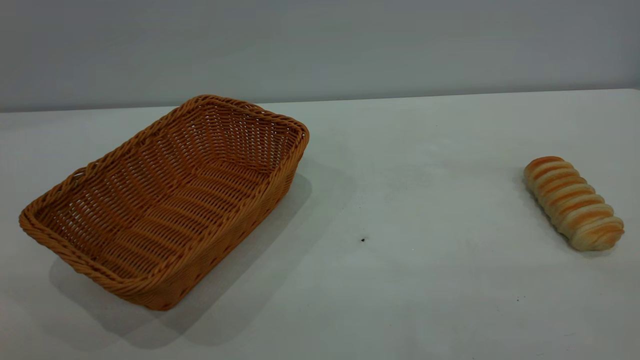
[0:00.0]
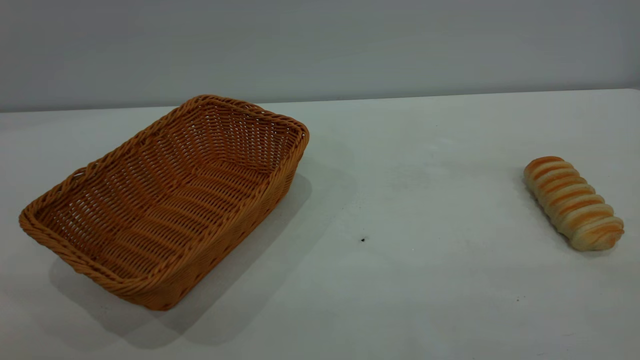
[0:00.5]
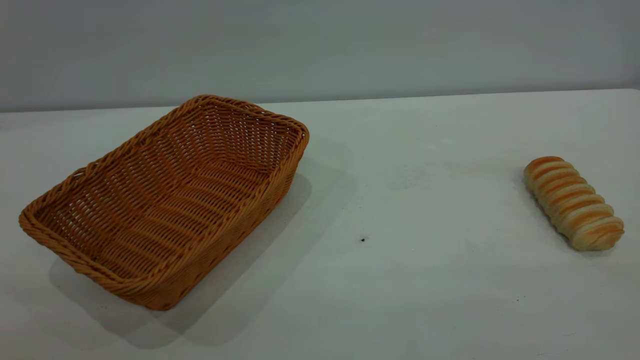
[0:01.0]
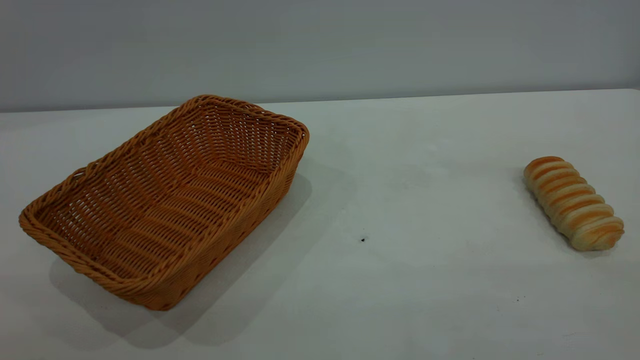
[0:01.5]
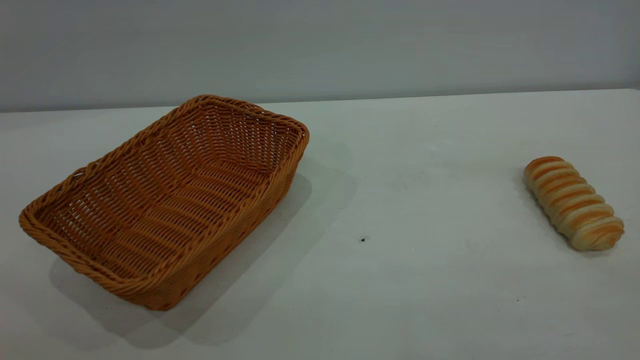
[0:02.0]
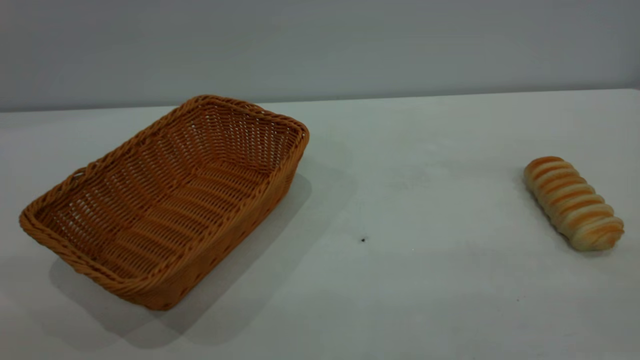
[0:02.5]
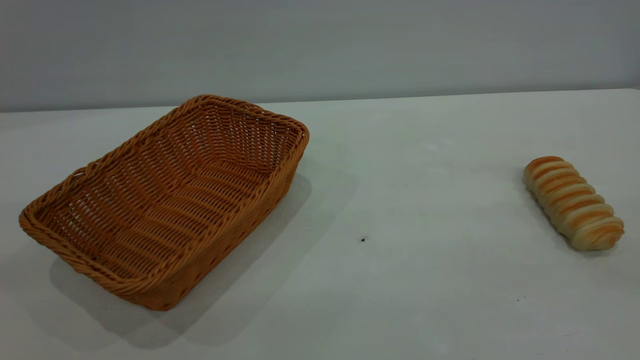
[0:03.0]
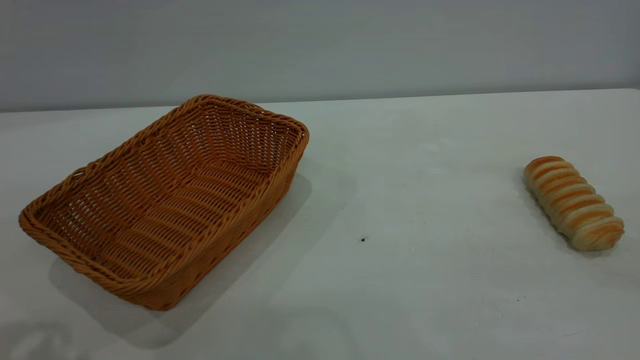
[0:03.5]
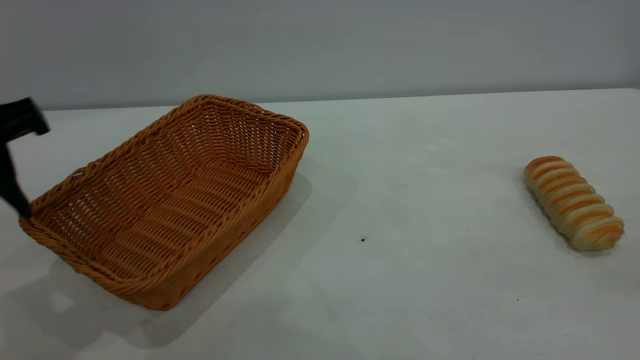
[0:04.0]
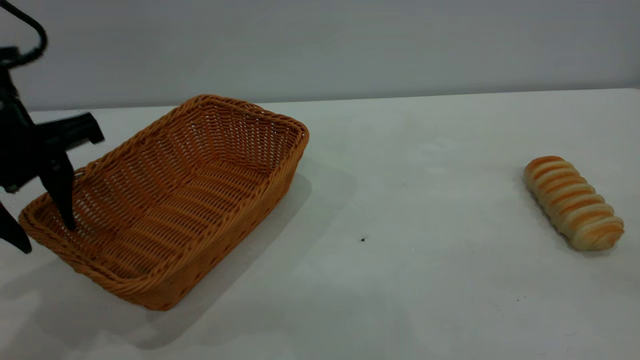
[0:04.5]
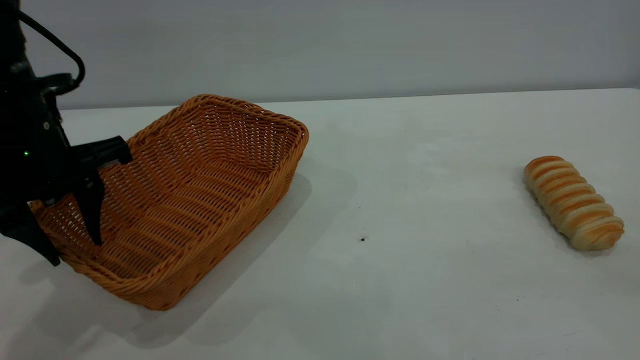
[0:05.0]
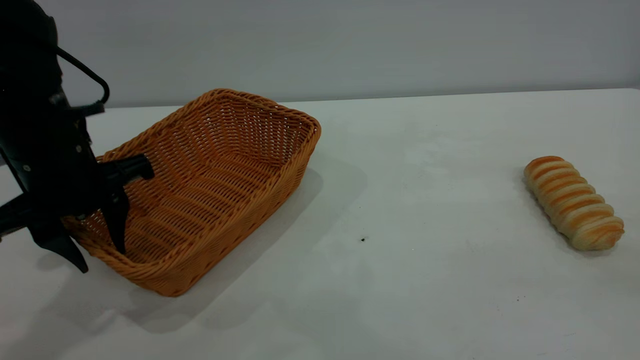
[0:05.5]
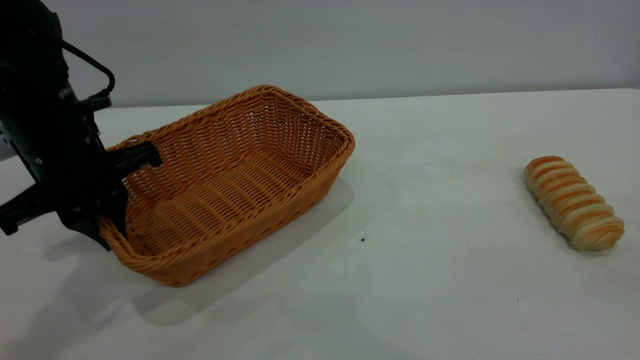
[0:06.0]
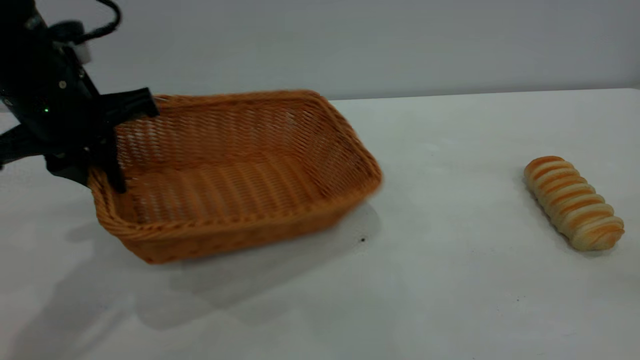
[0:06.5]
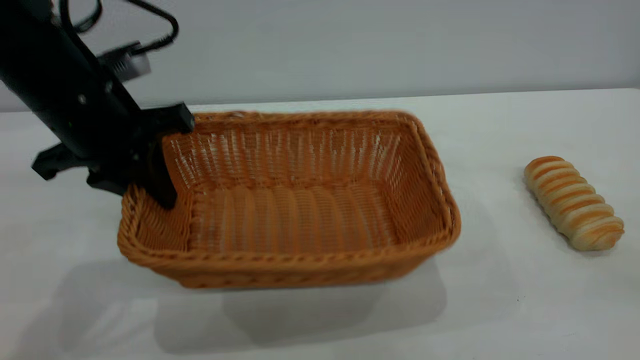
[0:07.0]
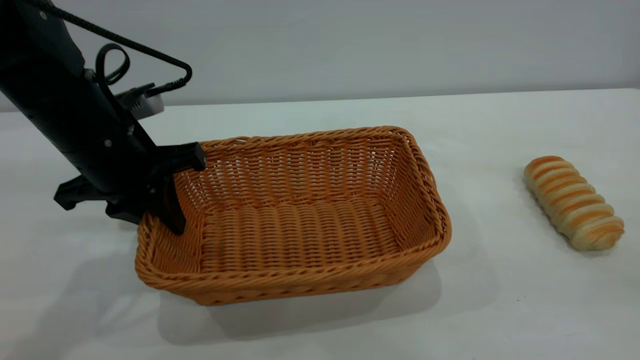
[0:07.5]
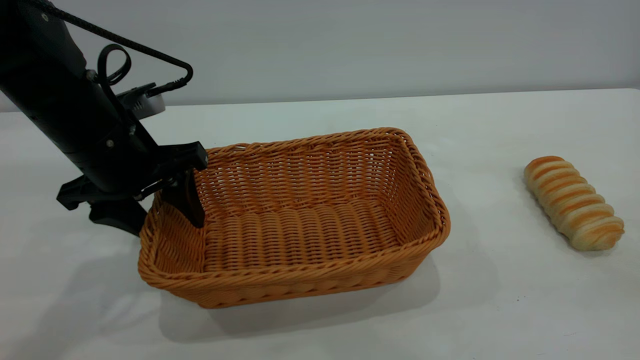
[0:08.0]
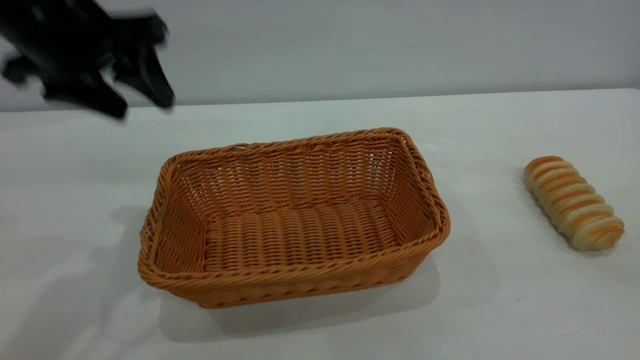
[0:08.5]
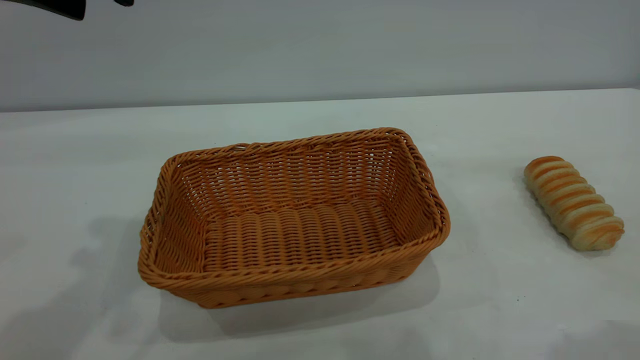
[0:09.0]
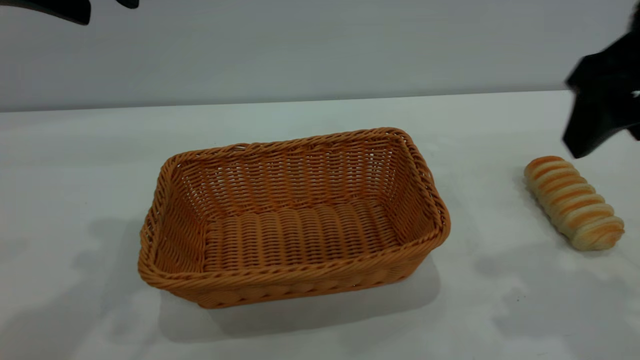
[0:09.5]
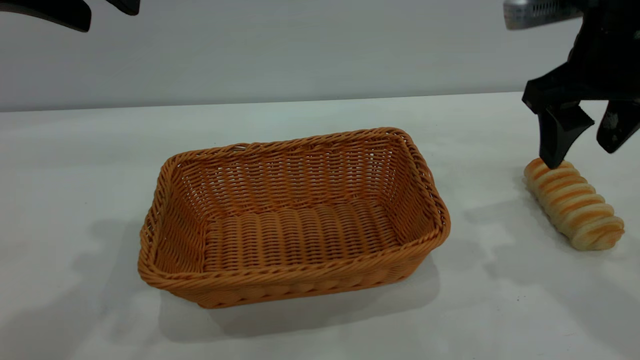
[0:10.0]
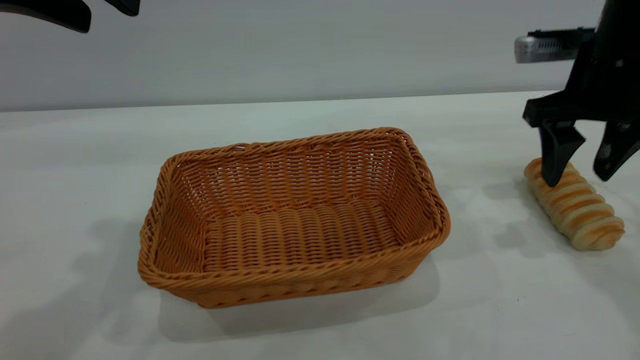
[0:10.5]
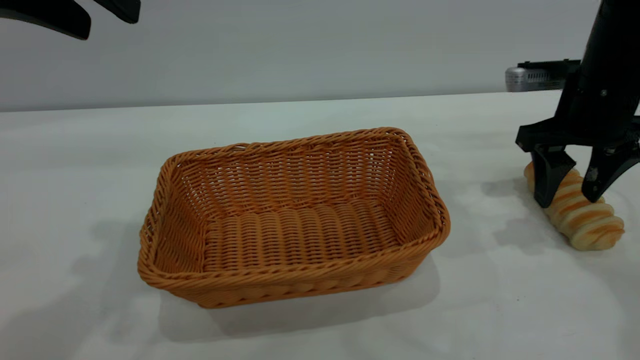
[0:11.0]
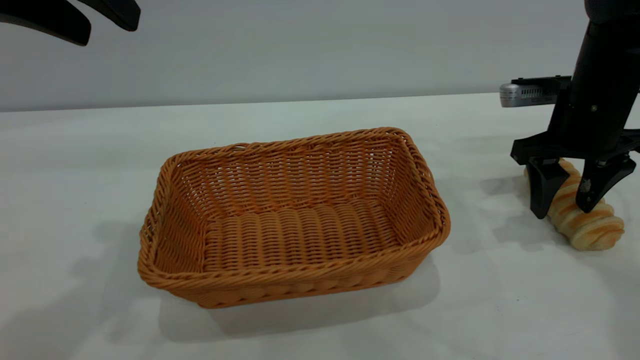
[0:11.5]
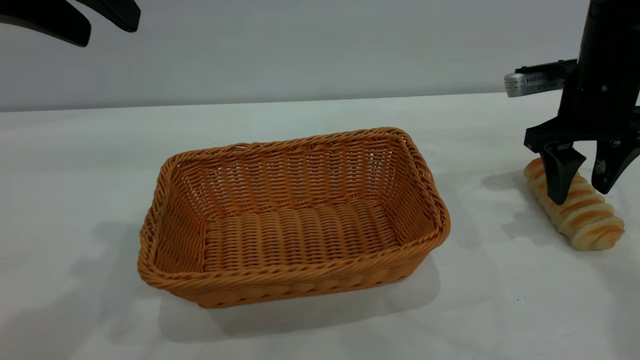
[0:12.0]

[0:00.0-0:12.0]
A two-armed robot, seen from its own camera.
Task of the whole recording: One hand grasps the yellow basket and places it in the middle of the table, while the other hand picks up the long bread and puts it into the yellow basket.
Step, 0:00.0 to 0:08.0: Move the basket to the center of view.
0:02.0 to 0:04.0: The left gripper is displaced forward by approximately 25 cm.
0:04.0 to 0:06.0: The left gripper shifts roughly 15 cm forward and downward, and closes up.
0:06.0 to 0:08.0: The left gripper opens up.
0:08.0 to 0:10.0: The left gripper goes about 20 cm upward; the right gripper shifts roughly 30 cm forward and downward.
0:10.0 to 0:12.0: The right gripper is displaced downward and forward by approximately 10 cm.

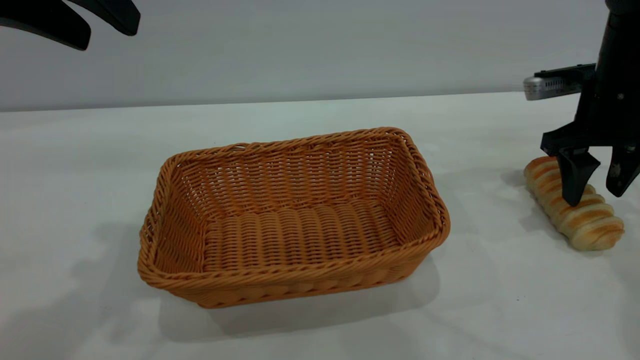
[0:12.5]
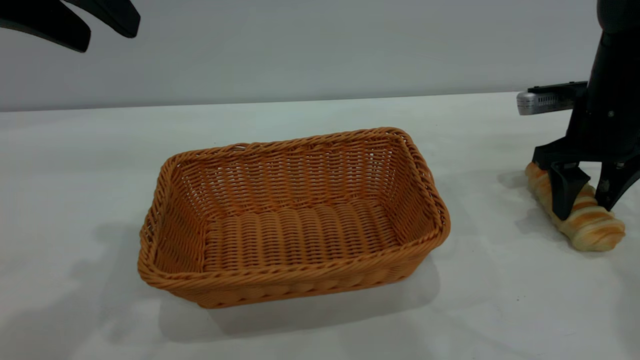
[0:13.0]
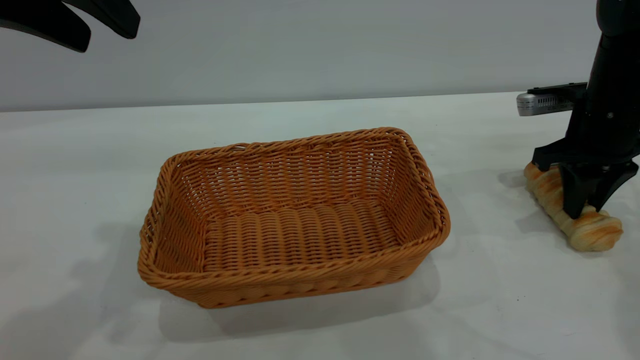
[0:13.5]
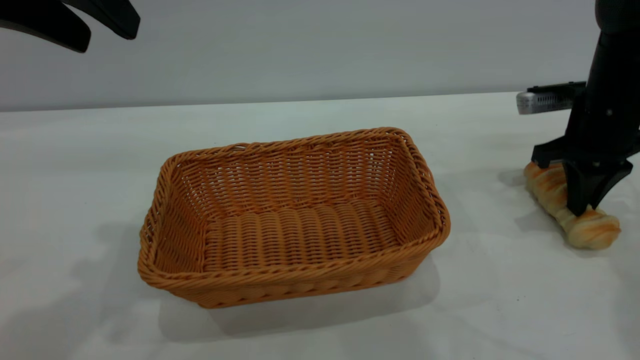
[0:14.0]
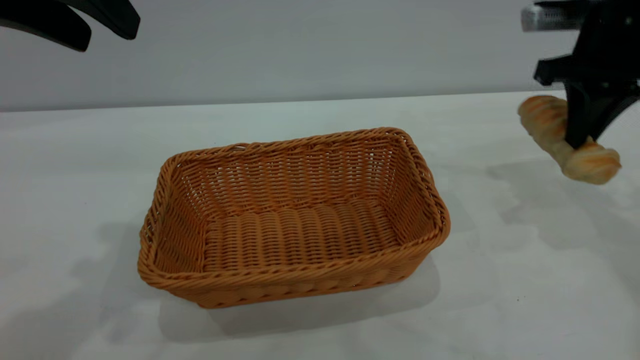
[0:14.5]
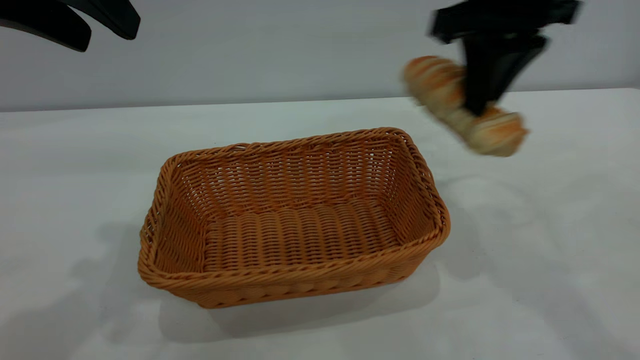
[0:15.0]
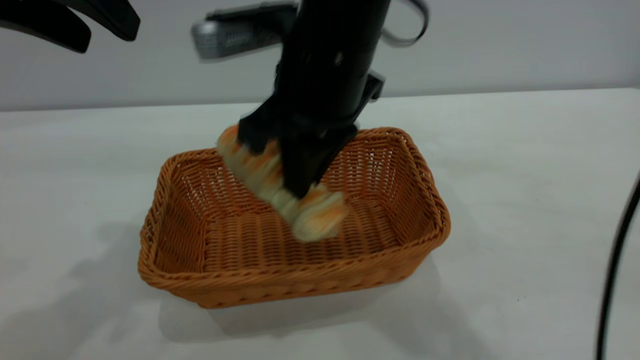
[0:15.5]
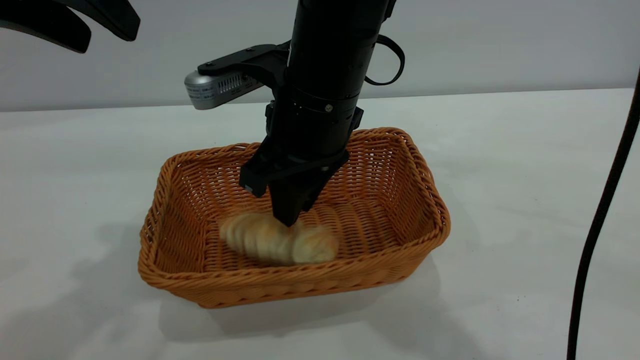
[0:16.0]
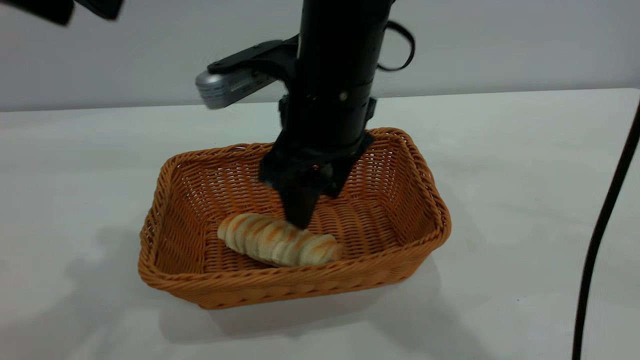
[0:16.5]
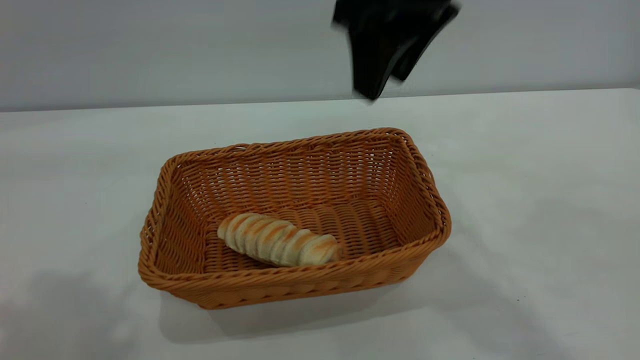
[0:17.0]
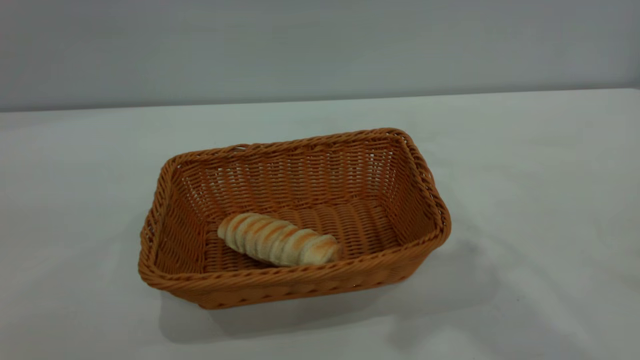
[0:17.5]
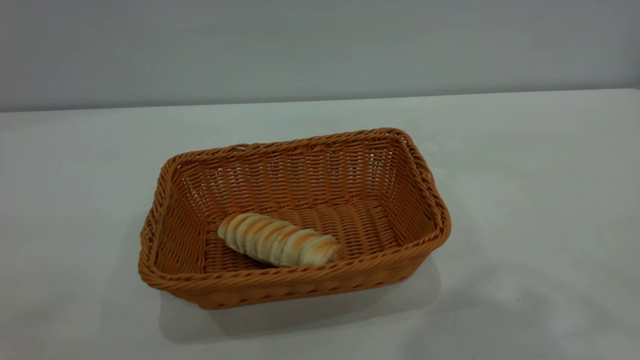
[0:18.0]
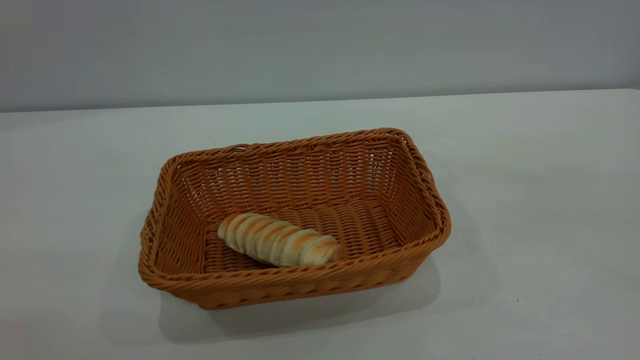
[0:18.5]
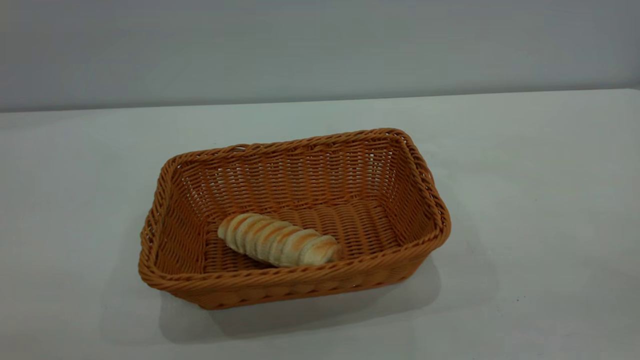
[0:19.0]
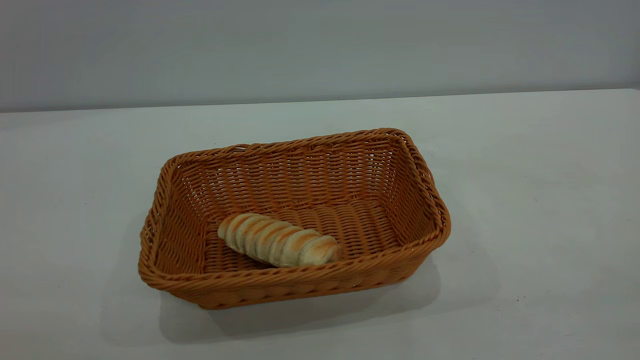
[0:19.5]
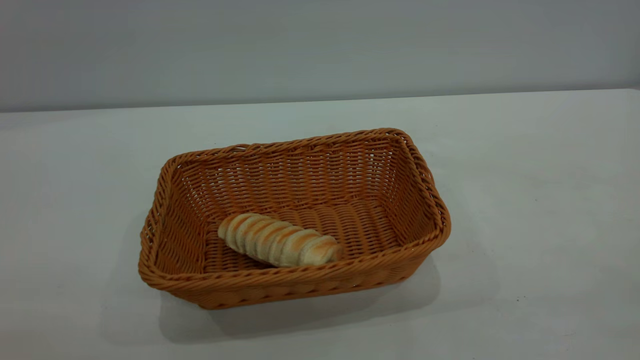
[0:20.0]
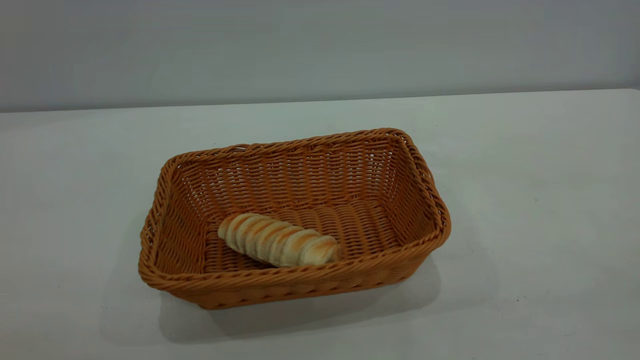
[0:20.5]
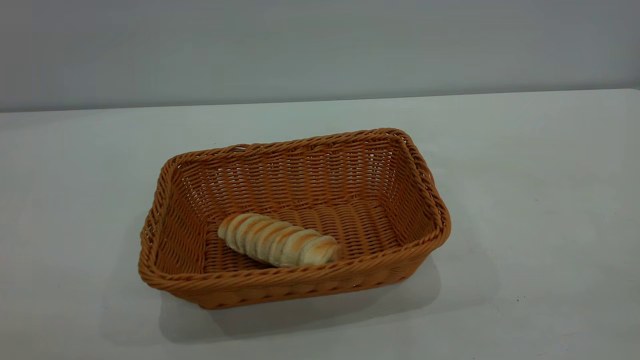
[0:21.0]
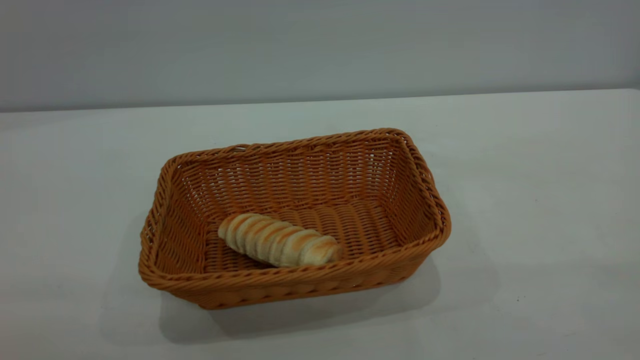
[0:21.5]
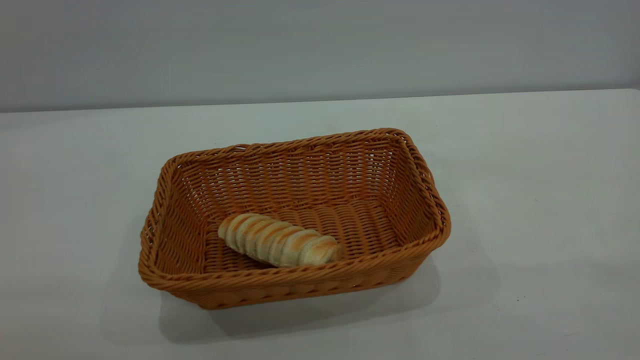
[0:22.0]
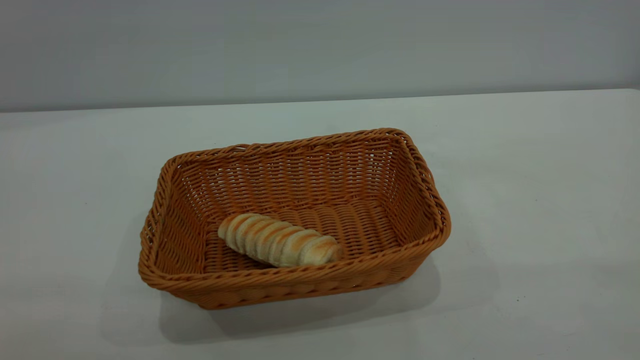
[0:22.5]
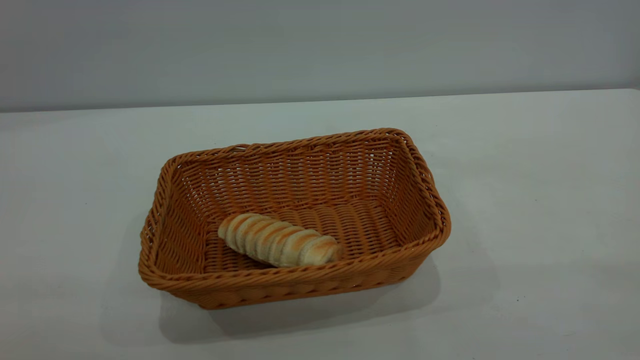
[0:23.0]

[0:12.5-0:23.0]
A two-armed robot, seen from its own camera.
Task of the whole recording: One hand grasps the yellow basket and places it in the middle of the table, while the other hand picks up the long bread and puts it into the yellow basket.
Step, 0:14.5 to 0:16.5: place the bread into the basket.
0:12.5 to 0:14.5: The right gripper travels upward by roughly 10 cm, and closes up.
0:14.5 to 0:16.5: The right gripper goes approximately 25 cm to the left, and opens.
0:16.5 to 0:19.0: The left gripper moves backward, about 30 cm. Meanwhile the right gripper is displaced backward, to the right and upward by about 40 cm.
